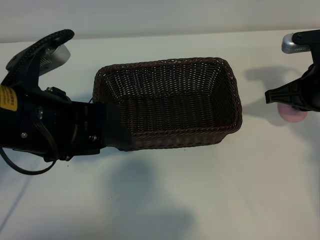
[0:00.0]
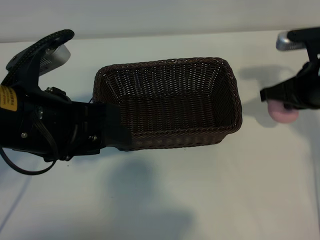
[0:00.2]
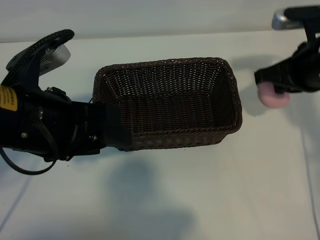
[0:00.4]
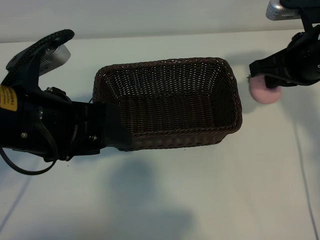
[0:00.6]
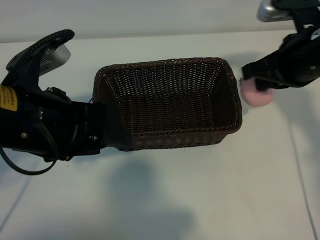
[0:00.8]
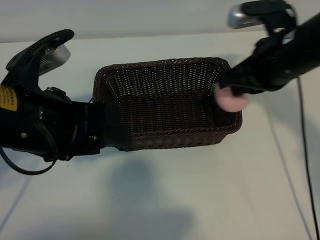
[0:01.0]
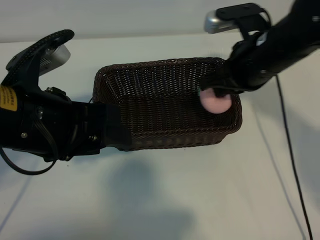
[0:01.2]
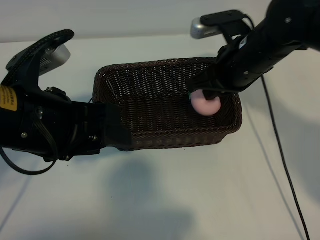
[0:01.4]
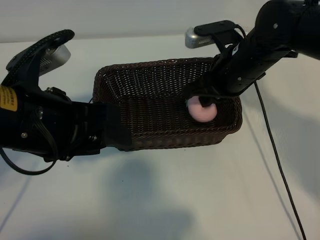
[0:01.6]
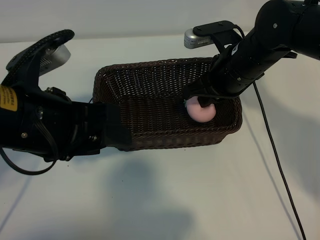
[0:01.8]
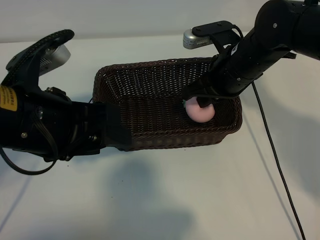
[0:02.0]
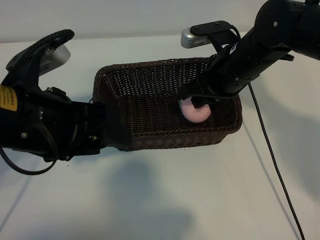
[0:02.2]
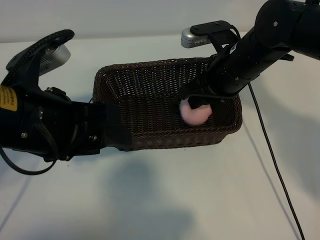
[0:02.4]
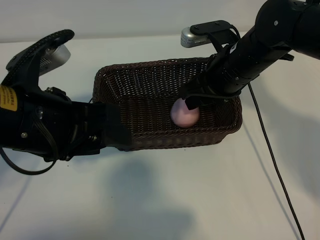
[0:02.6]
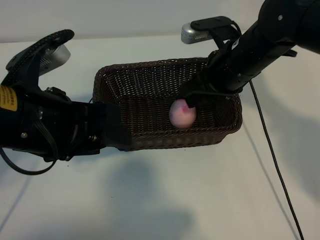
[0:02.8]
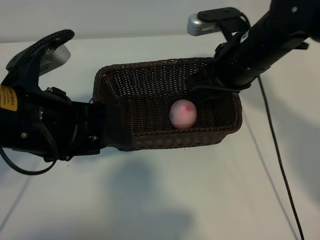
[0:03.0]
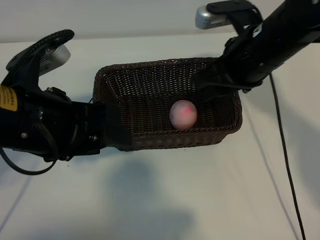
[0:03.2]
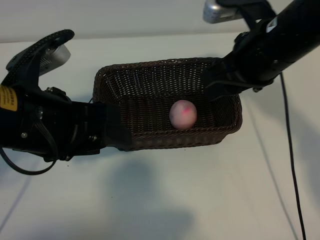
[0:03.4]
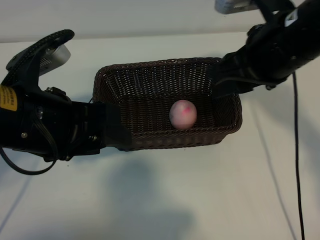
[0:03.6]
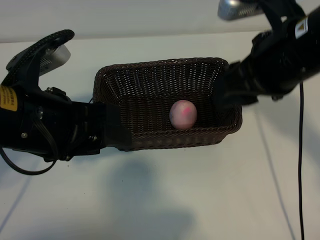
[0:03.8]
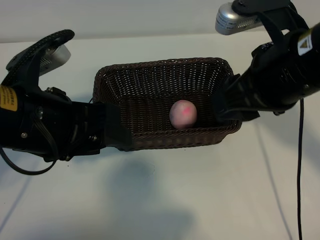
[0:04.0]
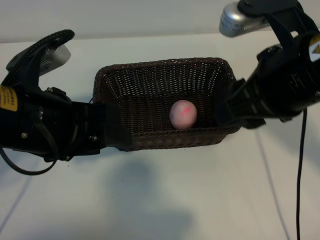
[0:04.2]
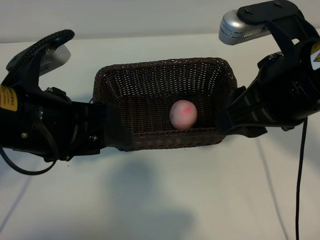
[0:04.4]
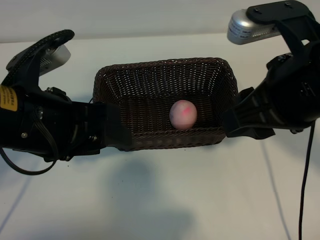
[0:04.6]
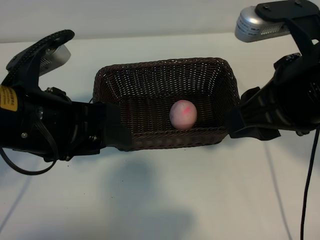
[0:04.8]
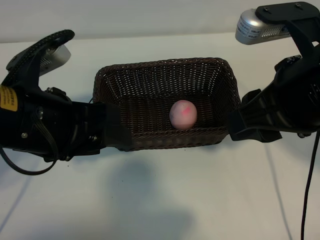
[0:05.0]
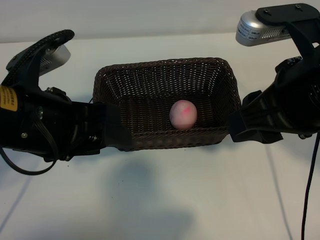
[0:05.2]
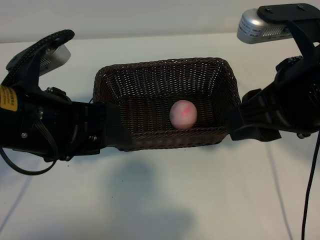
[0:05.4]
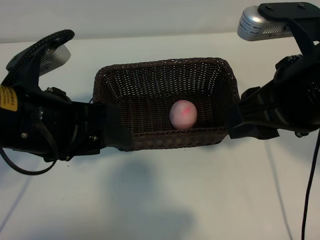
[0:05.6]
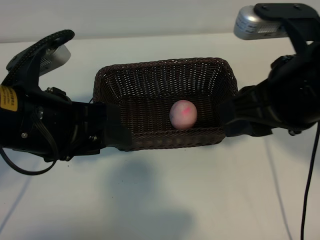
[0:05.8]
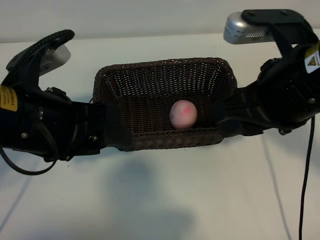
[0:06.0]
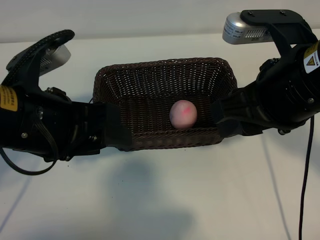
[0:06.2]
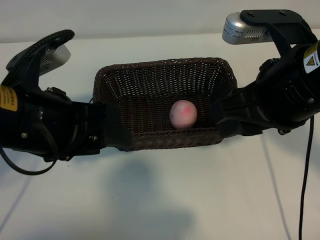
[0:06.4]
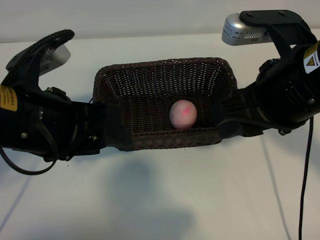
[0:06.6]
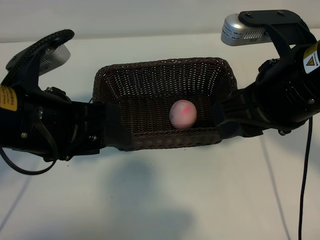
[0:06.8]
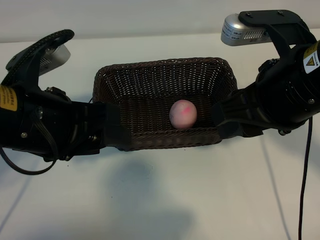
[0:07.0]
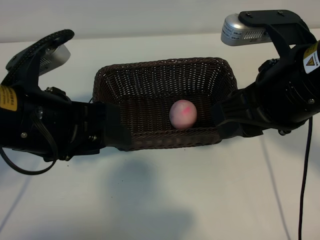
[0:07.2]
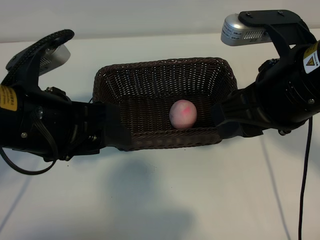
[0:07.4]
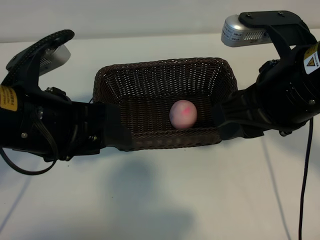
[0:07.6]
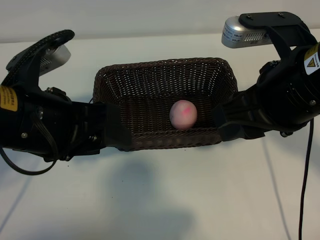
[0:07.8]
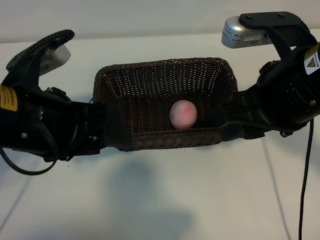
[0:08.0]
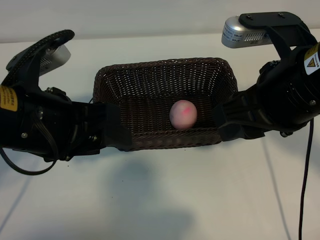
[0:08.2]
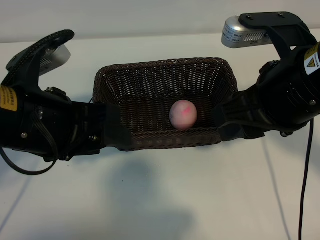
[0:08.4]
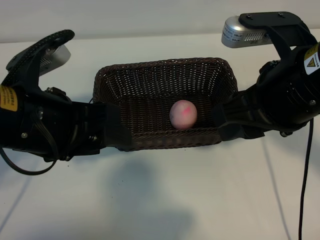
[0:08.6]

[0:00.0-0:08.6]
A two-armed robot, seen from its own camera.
Task of the whole recording: pick up the peach and put it into the basket.
Step, 0:00.0 to 0:02.6: Place the peach in the basket with right gripper.
